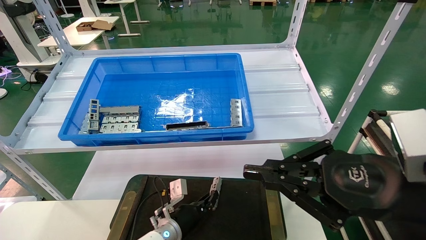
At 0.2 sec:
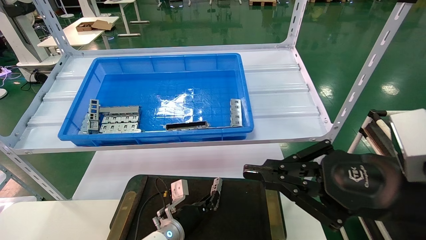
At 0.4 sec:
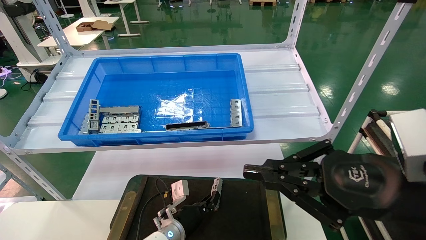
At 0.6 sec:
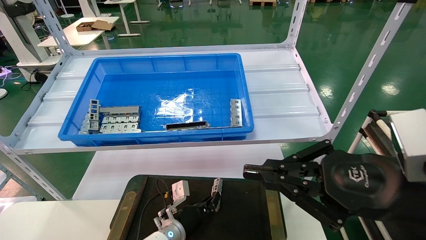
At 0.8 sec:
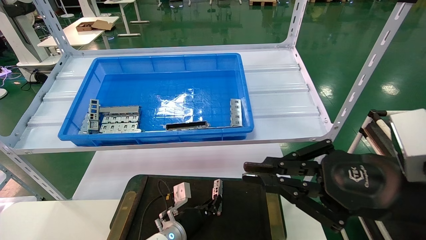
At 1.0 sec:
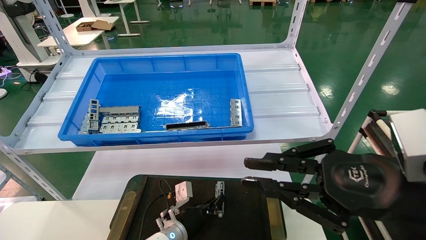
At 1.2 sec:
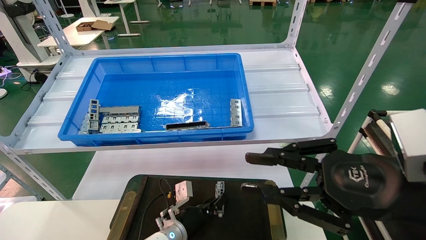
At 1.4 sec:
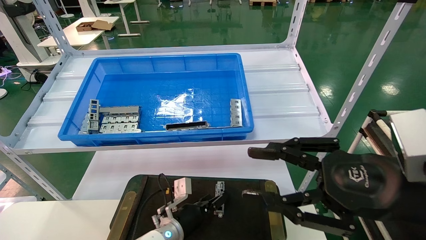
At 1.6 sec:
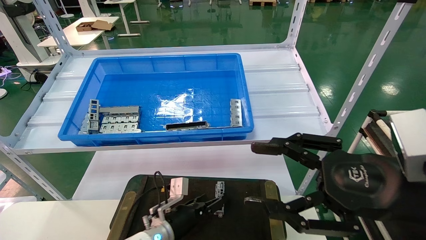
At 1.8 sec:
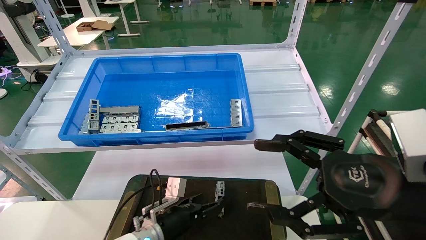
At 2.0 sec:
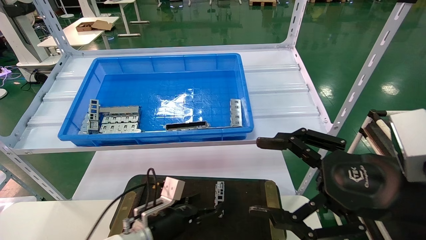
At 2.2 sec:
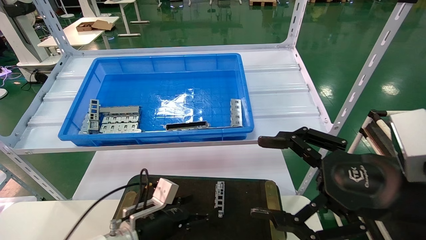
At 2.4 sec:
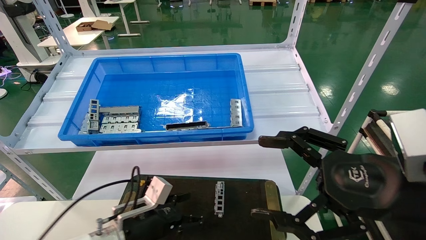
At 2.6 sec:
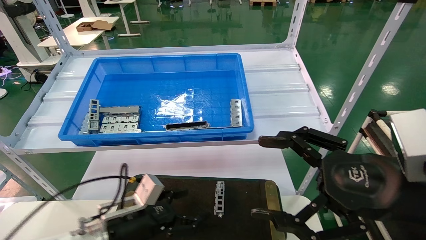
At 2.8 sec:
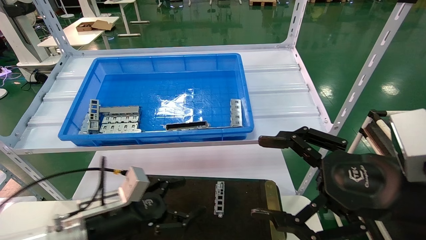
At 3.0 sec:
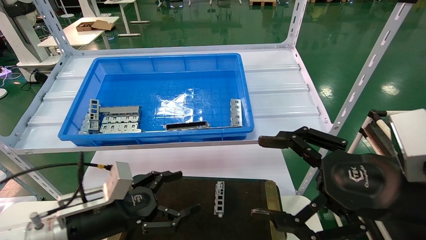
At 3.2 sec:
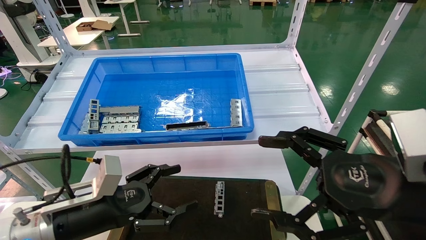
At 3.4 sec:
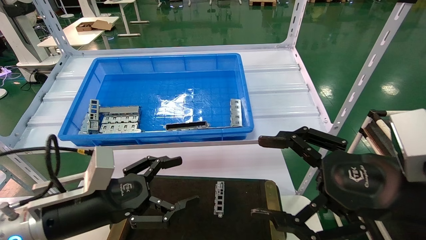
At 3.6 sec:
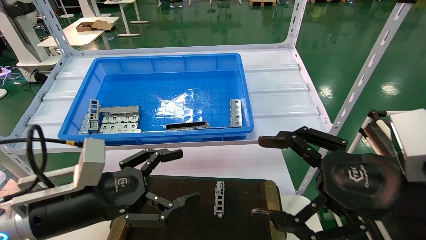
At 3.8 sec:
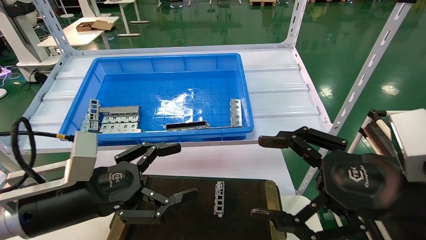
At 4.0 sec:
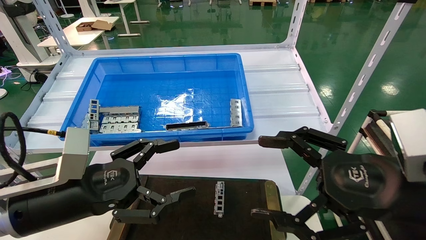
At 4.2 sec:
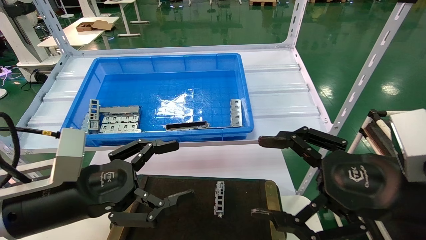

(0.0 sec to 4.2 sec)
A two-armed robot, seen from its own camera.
Task of the whole recording: Grasp the part with one hand and place it on the black container.
0.0 sec - 1.4 sec: The right gripper opens its fingers.
1.4 sec - 2.8 sec: The left gripper travels to the left, upward and backward by roughly 20 cm, and opens up. Meanwhile the right gripper opens up.
2.8 sec - 4.2 sec: The left gripper shifts some 15 cm upward and backward.
